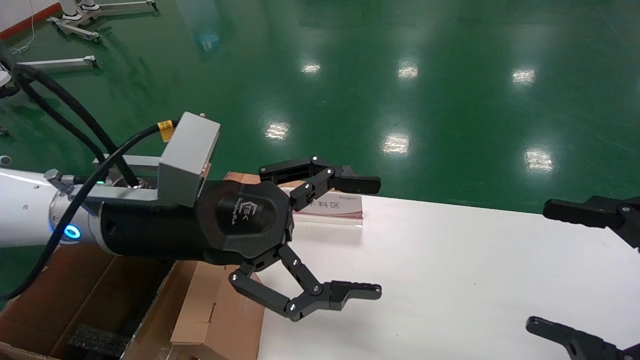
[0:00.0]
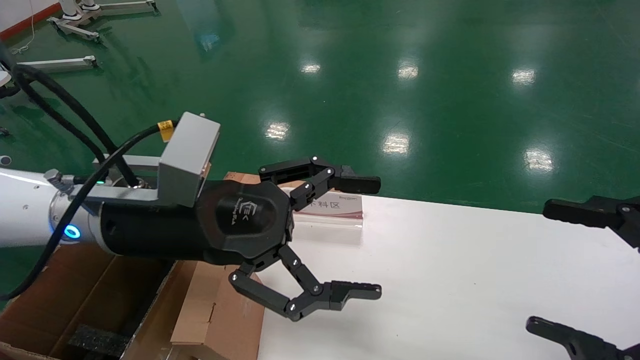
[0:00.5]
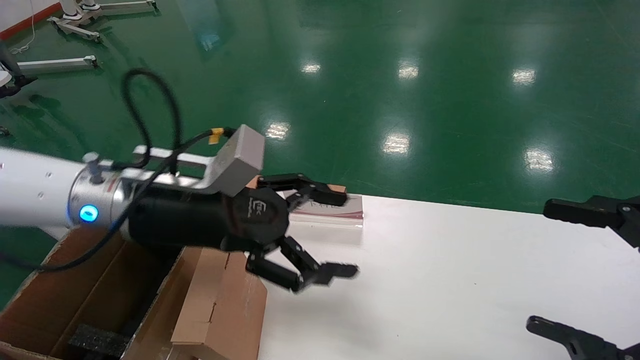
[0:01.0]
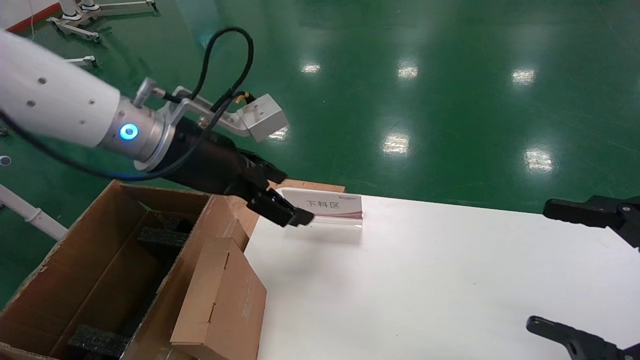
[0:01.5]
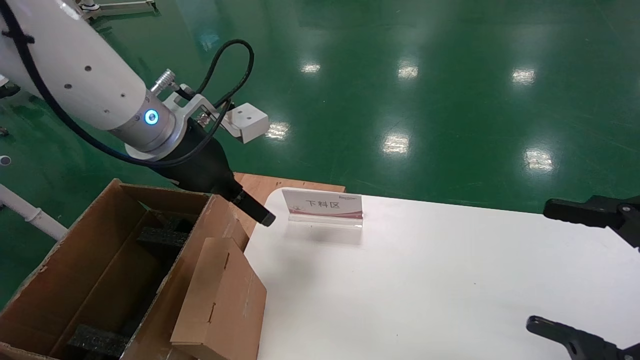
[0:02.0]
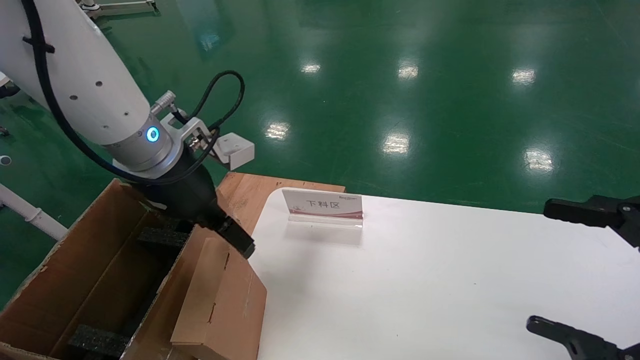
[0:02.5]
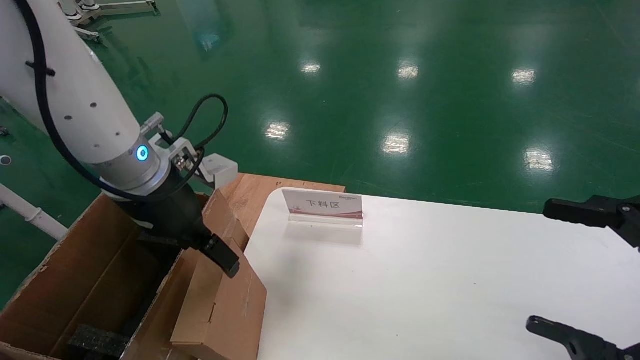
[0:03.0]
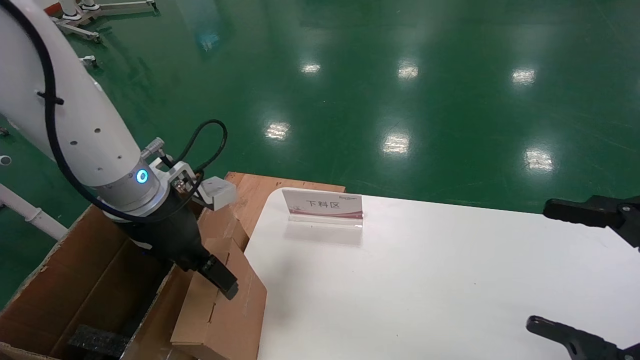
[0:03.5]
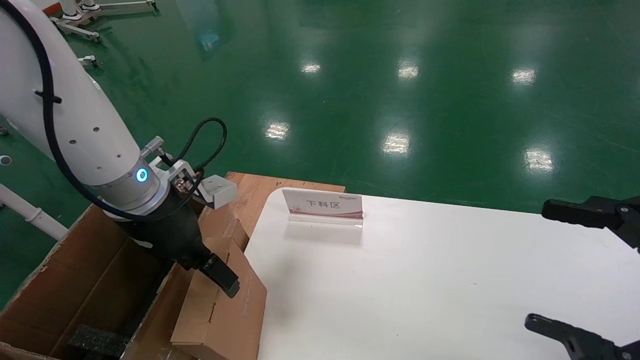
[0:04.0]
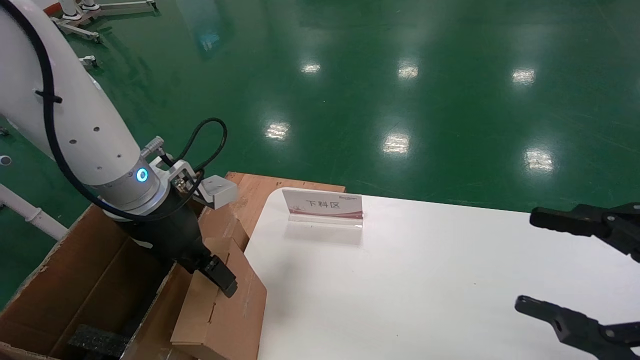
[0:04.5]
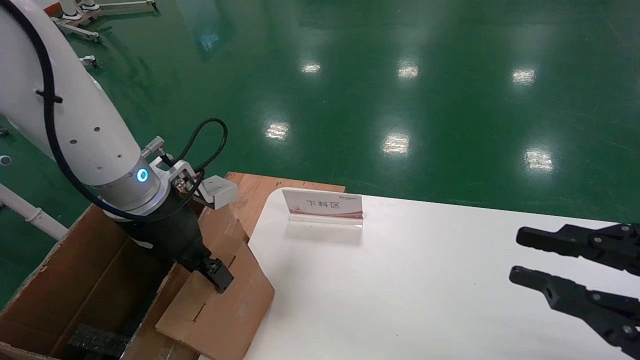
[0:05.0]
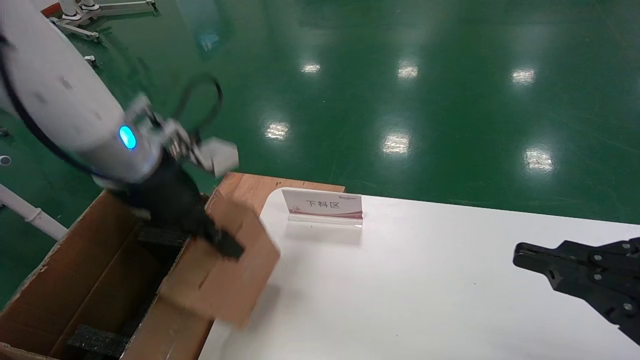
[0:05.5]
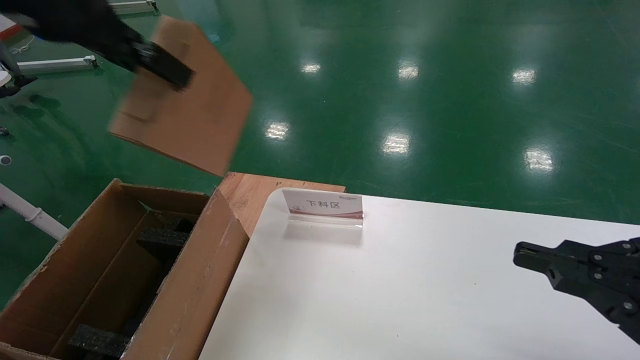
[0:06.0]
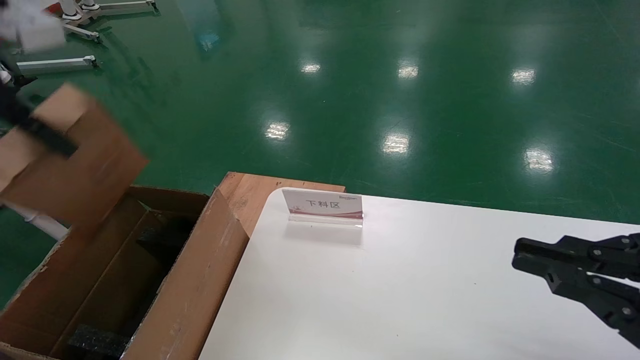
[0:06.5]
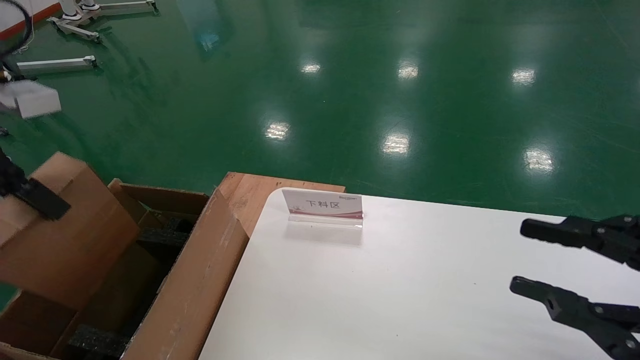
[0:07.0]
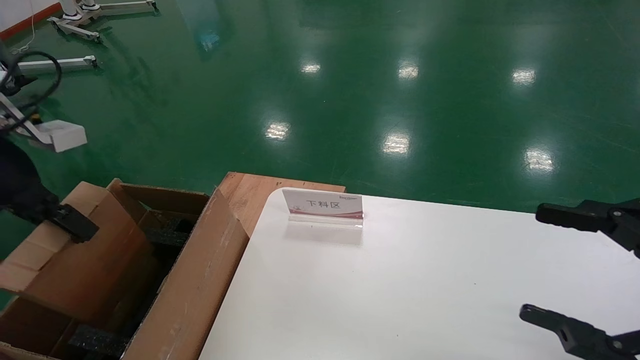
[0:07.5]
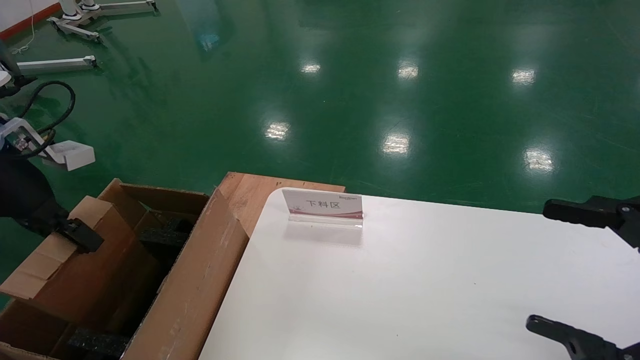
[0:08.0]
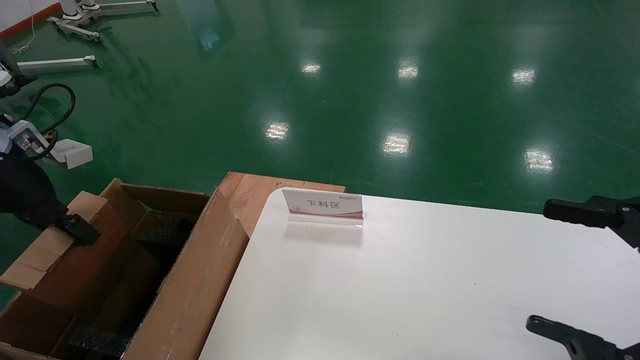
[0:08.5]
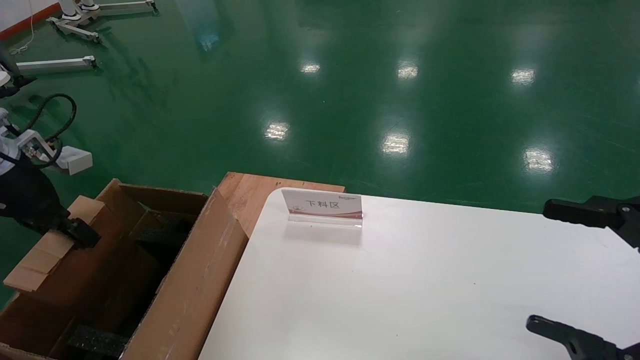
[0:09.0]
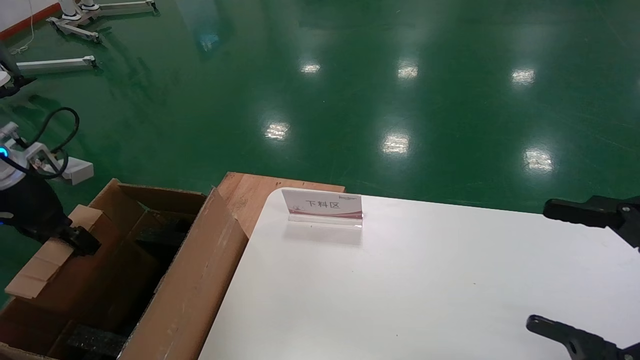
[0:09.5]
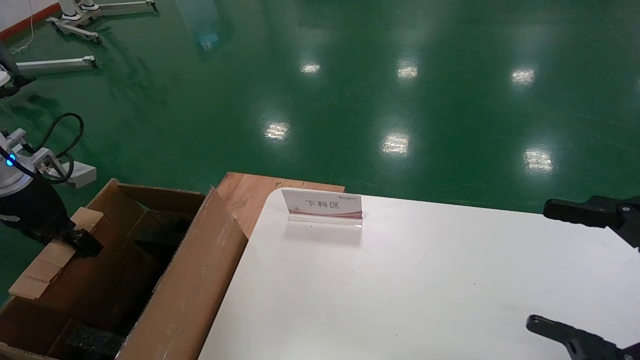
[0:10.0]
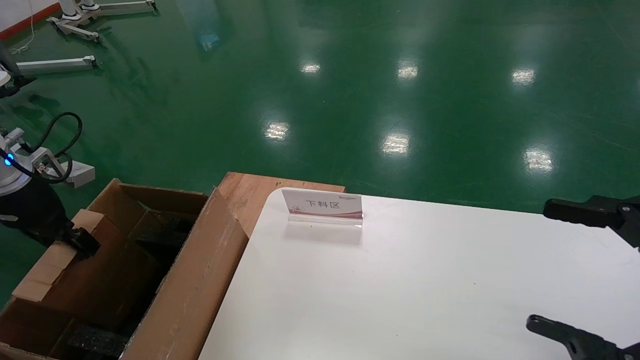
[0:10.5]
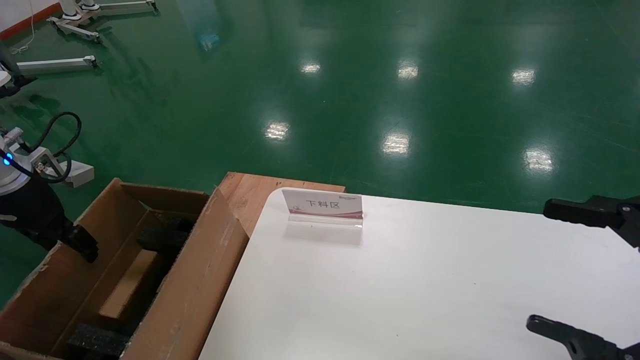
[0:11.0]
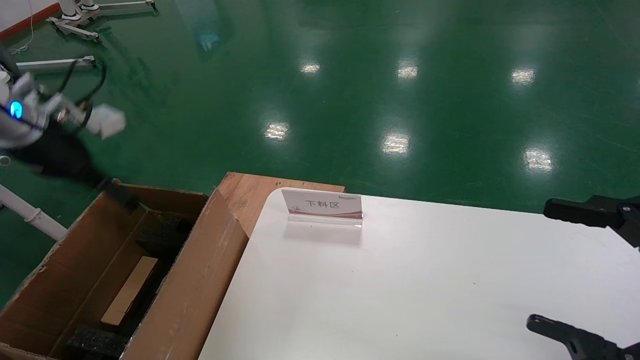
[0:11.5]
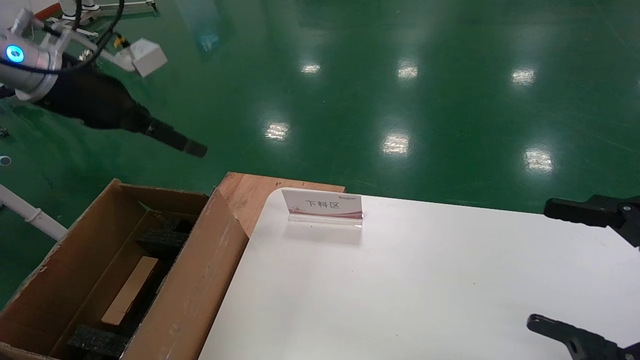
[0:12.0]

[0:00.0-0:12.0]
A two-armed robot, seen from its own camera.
Task of the whole recording: pick up the small cardboard box and load it into the large cardboard box.
Step, 0:01.0 to 0:05.0: Pick up the mouse and power cord box.
Step, 0:05.5 to 0:10.5: Place the mouse and power cord box into the case.
0:00.0 to 0:02.0: The left gripper shifts some 10 cm forward and upward.
0:02.0 to 0:04.0: The left gripper is displaced downward by roughly 5 cm.
0:04.0 to 0:06.0: The right gripper closes. Meanwhile the left gripper is displaced upward by some 20 cm, and closes its fingers.
0:06.0 to 0:08.0: The right gripper opens its fingers; the left gripper is displaced downward and to the left by some 20 cm.
0:08.0 to 0:10.0: The left gripper is displaced downward and to the left by roughly 10 cm.
0:10.0 to 0:12.0: The left gripper travels upward and to the right by some 15 cm, and opens.

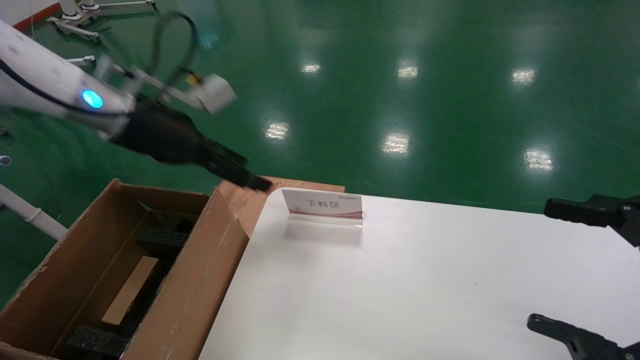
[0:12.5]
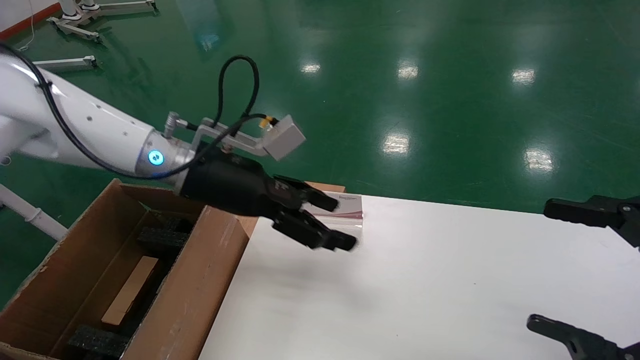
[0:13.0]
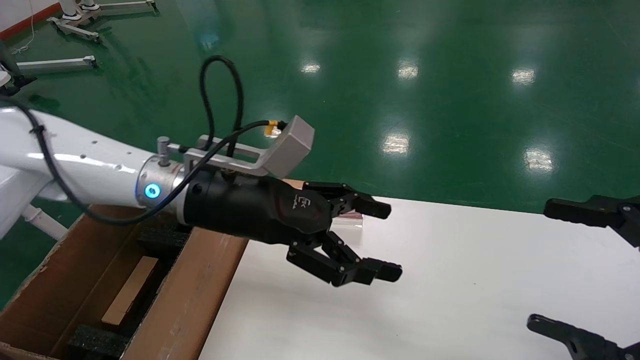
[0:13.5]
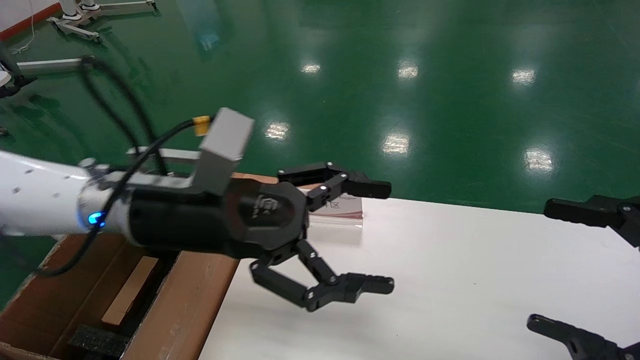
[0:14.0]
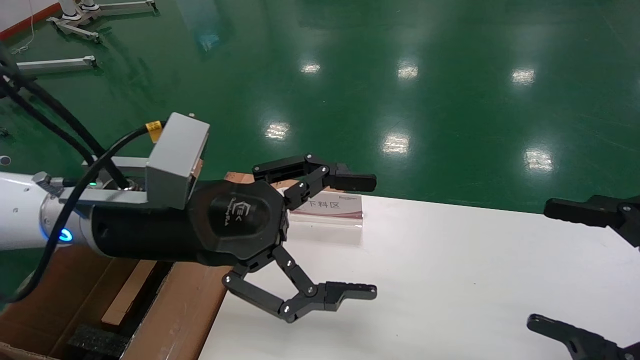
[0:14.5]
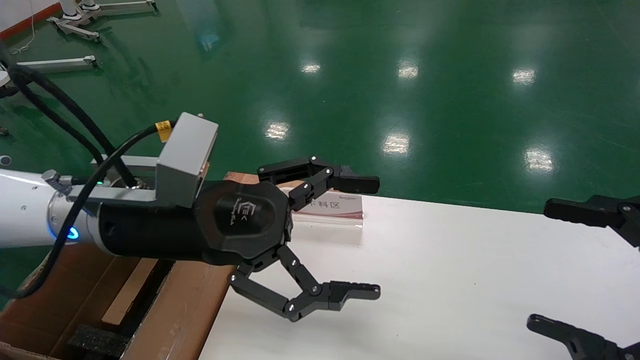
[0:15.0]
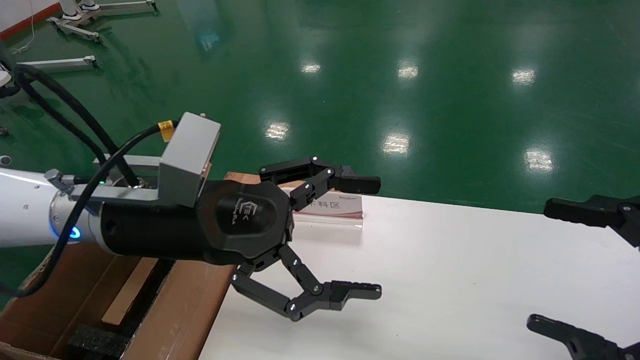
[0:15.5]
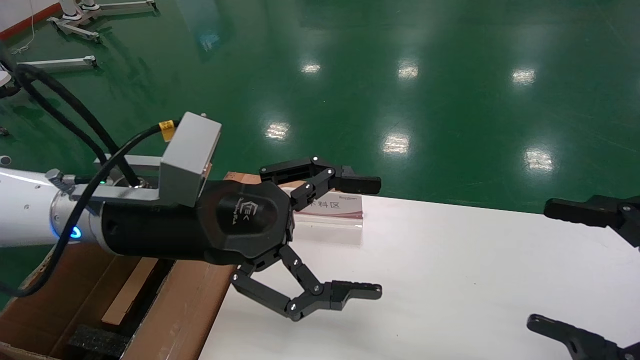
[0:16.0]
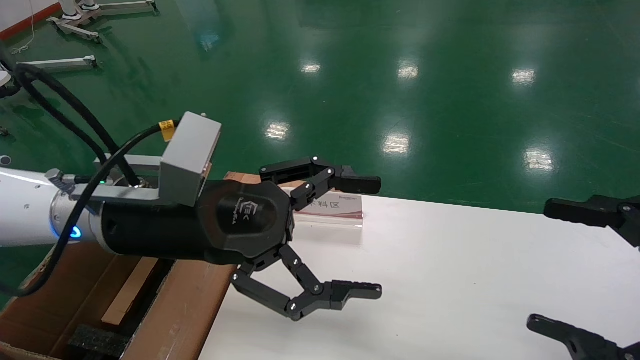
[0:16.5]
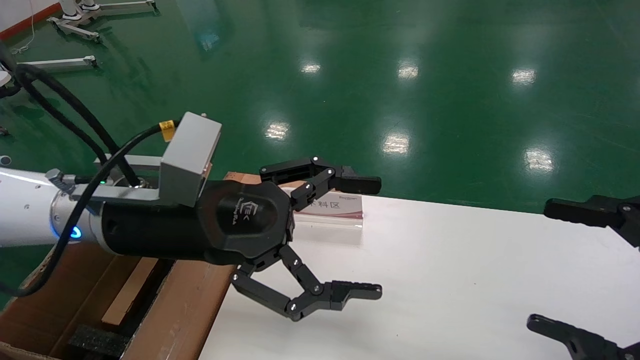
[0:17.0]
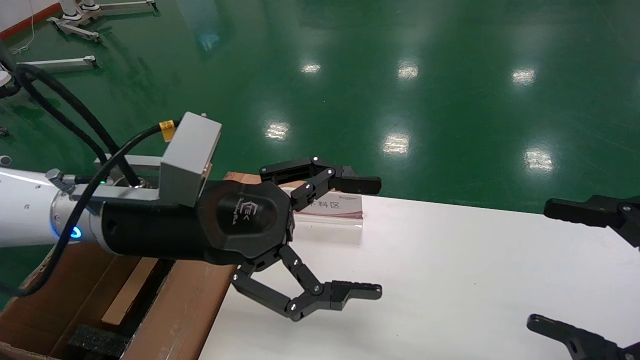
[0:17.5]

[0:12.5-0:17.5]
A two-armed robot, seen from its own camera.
Task of the whole recording: pick up the small cardboard box and load it into the large cardboard box.
0:12.5 to 0:15.0: The left gripper travels backward and to the right by approximately 15 cm.
0:15.0 to 0:17.5: Both grippers stay put.
